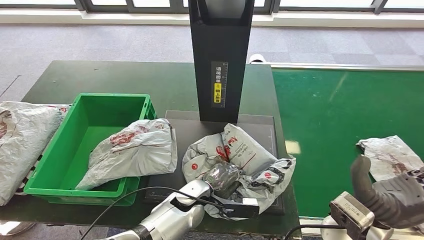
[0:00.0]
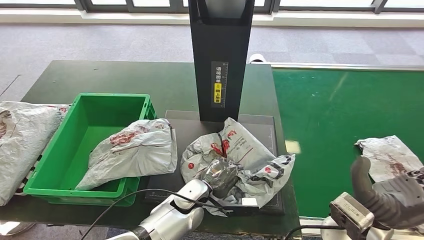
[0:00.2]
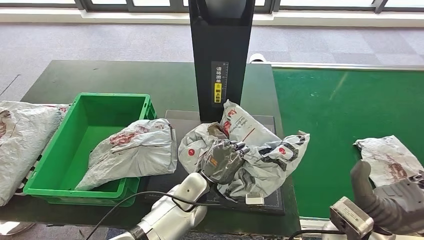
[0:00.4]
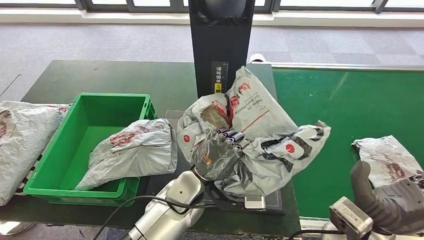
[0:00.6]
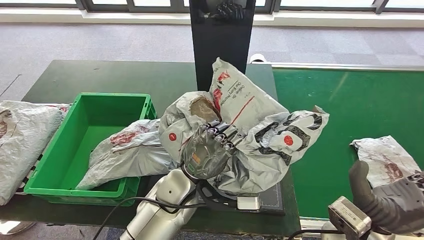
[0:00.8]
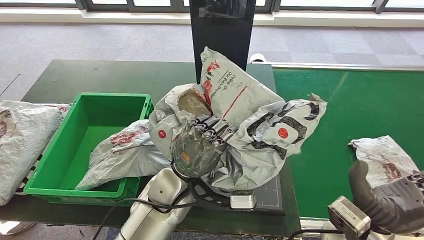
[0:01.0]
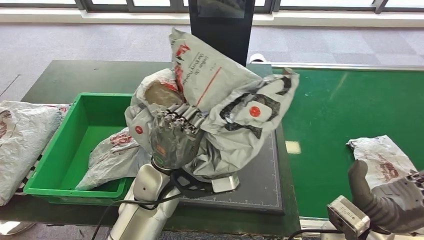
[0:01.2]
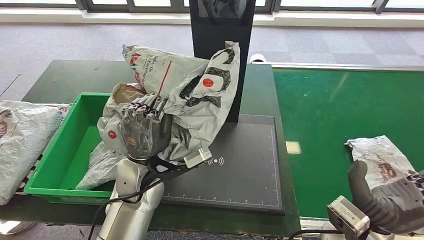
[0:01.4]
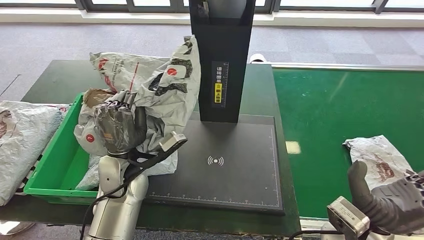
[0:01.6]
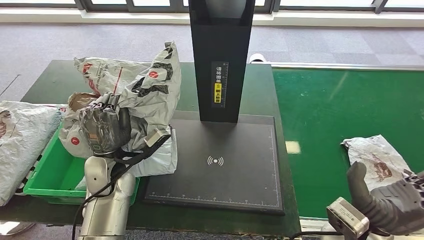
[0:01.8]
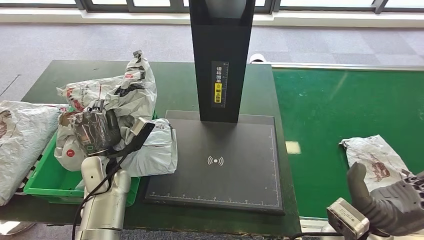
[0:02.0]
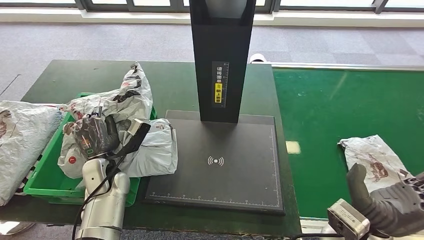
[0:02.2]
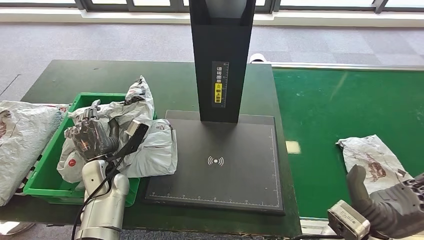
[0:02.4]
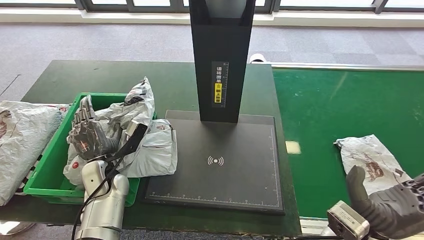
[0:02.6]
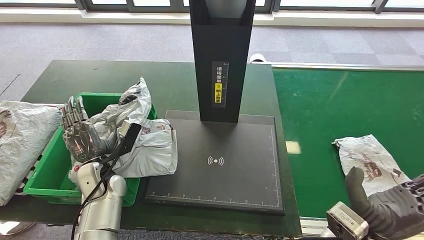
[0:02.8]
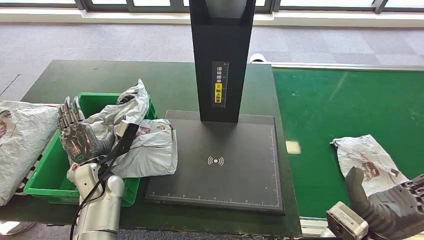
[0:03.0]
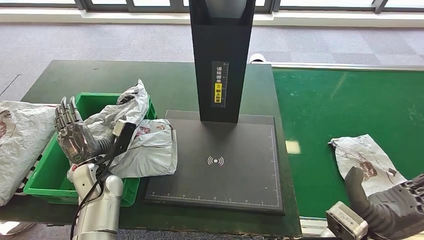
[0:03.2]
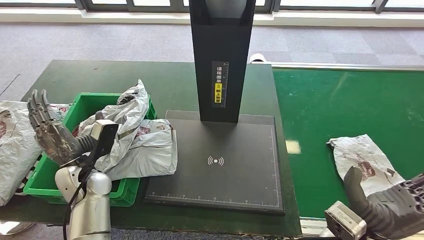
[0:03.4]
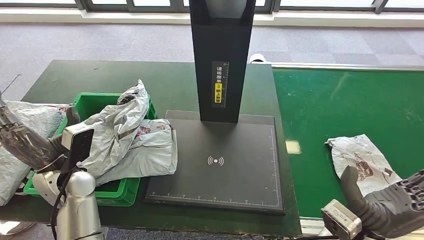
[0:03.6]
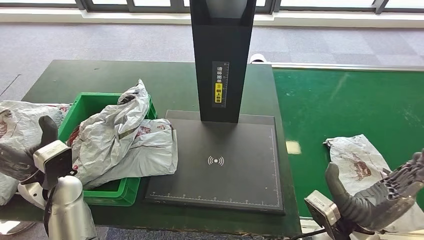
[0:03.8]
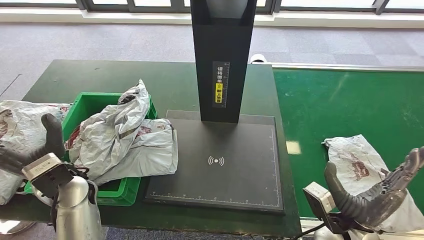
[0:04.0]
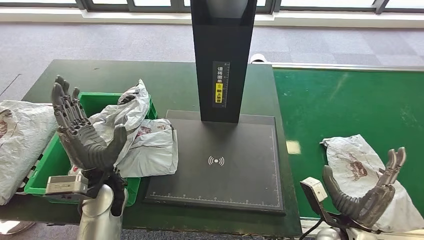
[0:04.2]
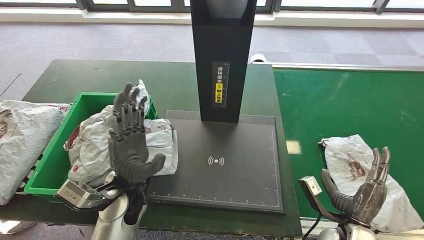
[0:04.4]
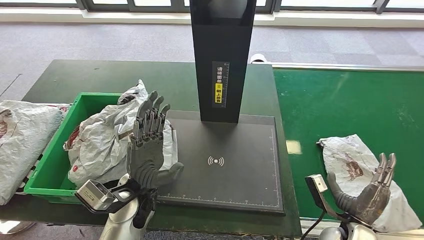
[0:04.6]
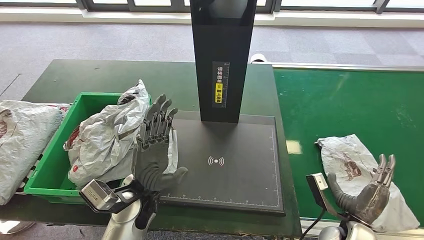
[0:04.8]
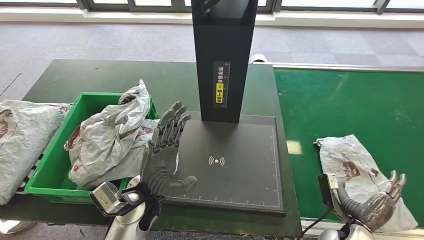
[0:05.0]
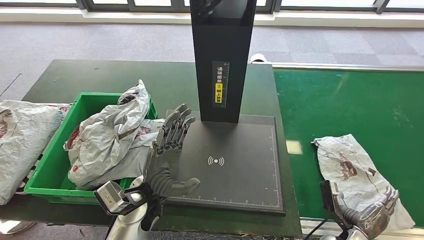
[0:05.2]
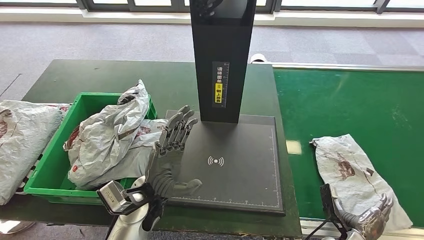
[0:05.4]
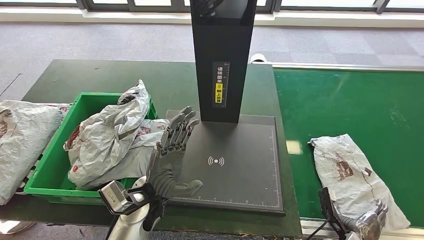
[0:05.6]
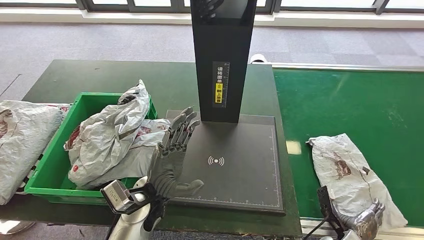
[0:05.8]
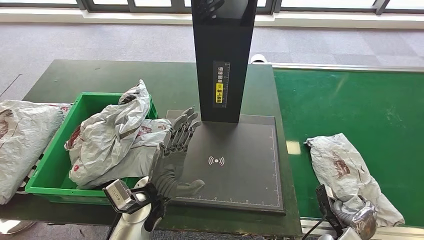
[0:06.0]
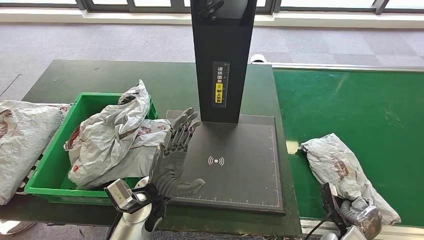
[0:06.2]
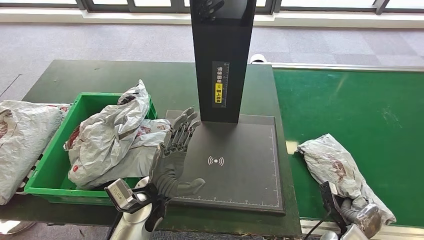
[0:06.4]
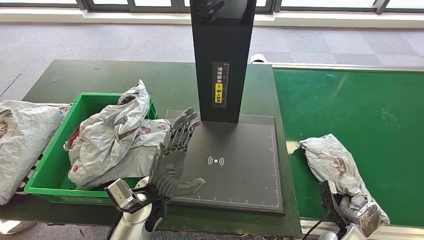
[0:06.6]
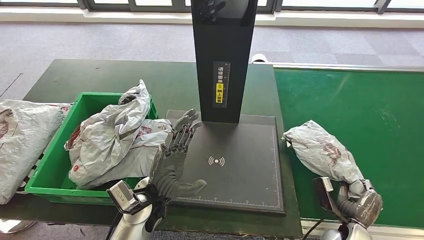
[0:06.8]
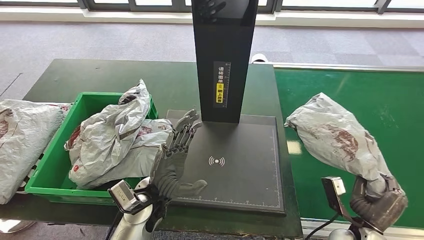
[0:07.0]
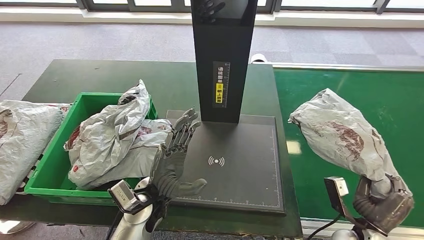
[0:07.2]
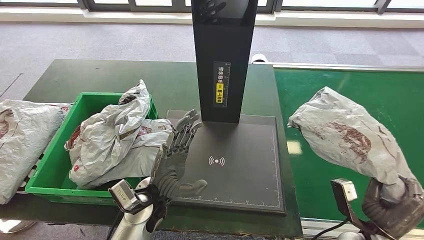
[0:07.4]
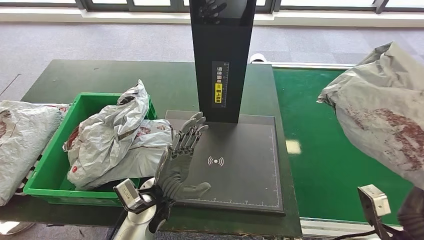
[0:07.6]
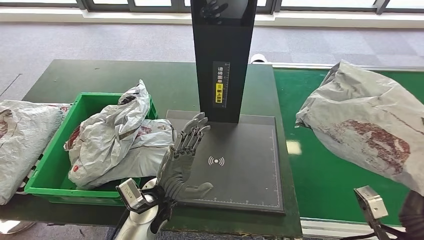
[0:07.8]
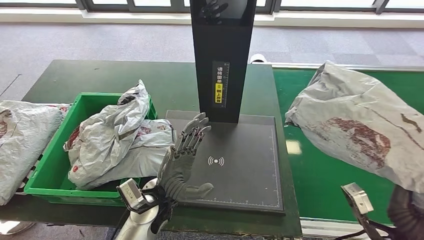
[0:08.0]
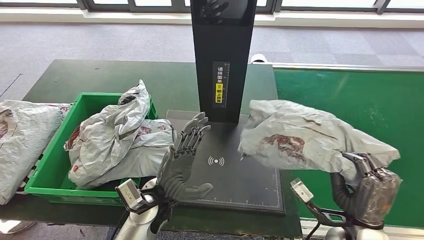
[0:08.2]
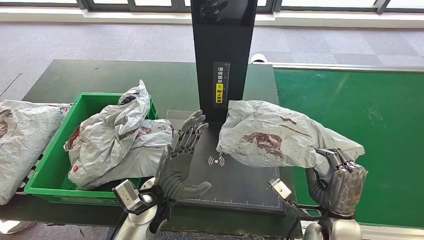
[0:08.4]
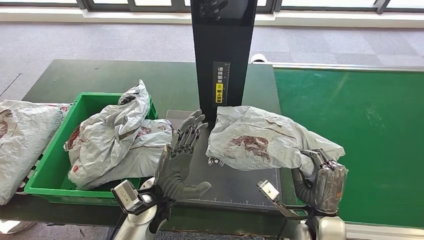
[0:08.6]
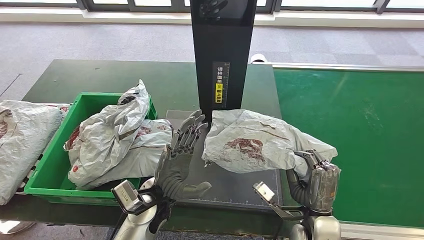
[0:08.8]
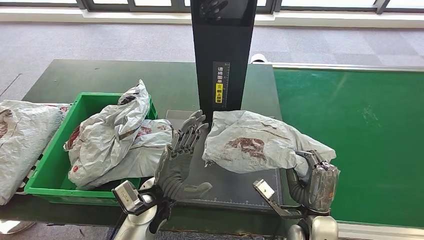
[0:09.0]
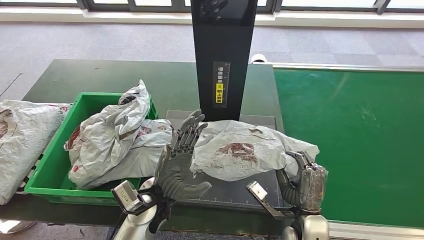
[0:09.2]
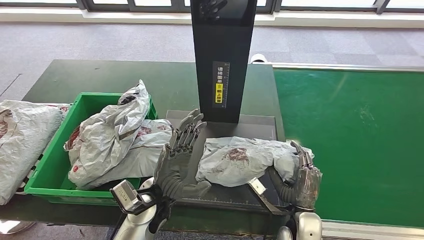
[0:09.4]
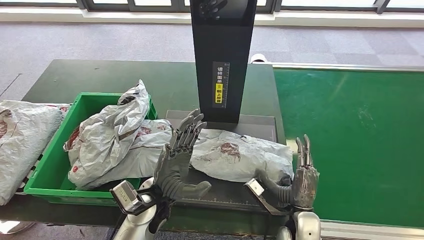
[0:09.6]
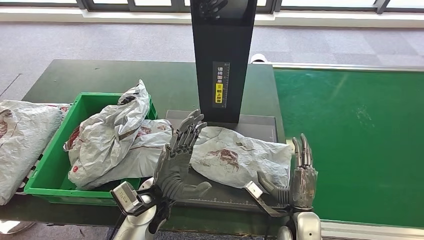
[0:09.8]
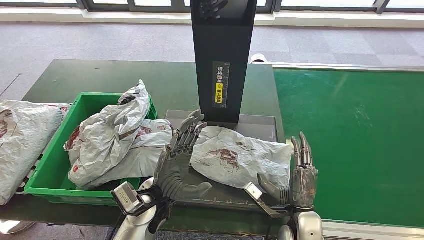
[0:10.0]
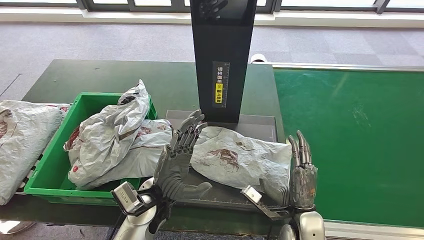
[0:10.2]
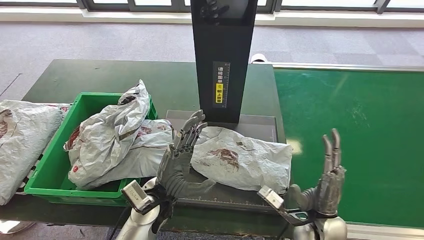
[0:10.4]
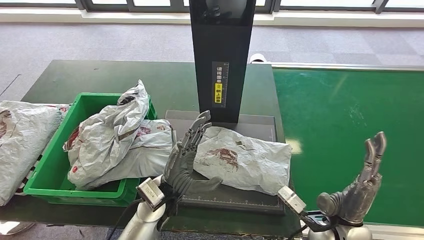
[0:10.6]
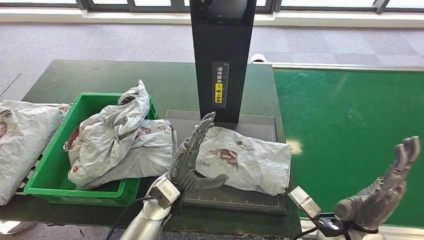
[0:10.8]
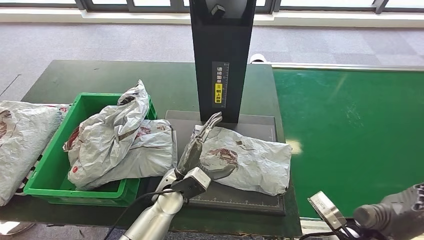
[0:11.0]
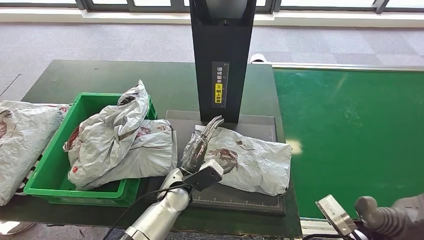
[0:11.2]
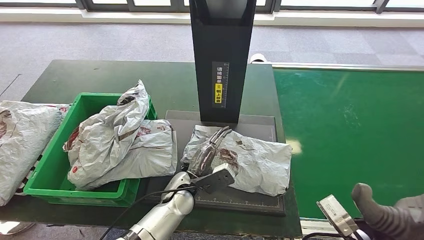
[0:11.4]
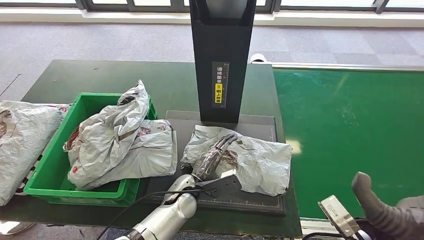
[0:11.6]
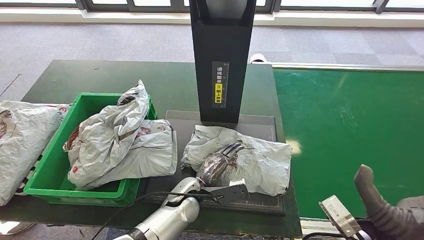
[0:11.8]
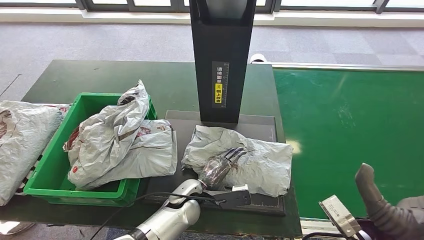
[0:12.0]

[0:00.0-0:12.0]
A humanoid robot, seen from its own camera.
Step, 0:00.6 to 0:03.6: Place the parcel into the delivery box.
Step, 0:03.8 to 0:07.6: Pick up the parcel from the conveyor belt.
Step, 0:07.8 to 0:10.8: Place the parcel onto the inbound machine.
0:01.6 to 0:03.0: The left hand is displaced to the left and downward by approximately 10 cm.
0:03.0 to 0:04.4: The right hand heads downward and to the right, covering about 10 cm, while the left hand goes roughly 15 cm to the right and upward.
0:04.4 to 0:06.0: The right hand heads downward, covering about 10 cm. Meanwhile the left hand changes place by roughly 5 cm.
0:09.0 to 0:10.4: The hands make only small movements.
0:10.4 to 0:12.0: The left hand goes about 10 cm downward, while the right hand heads upward and to the right, covering approximately 10 cm.

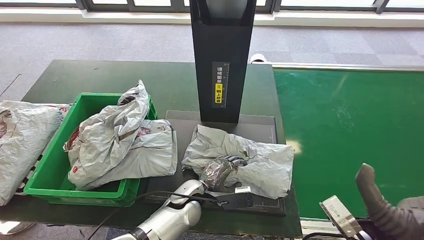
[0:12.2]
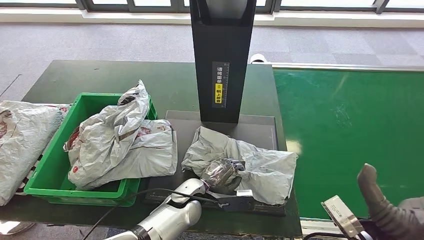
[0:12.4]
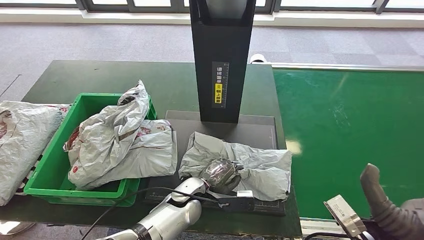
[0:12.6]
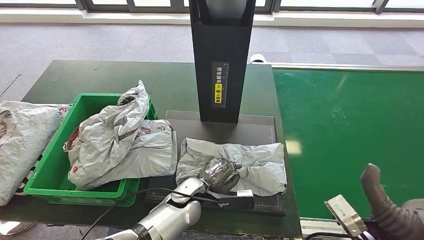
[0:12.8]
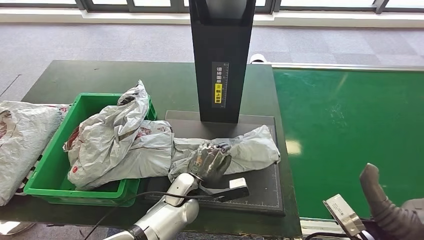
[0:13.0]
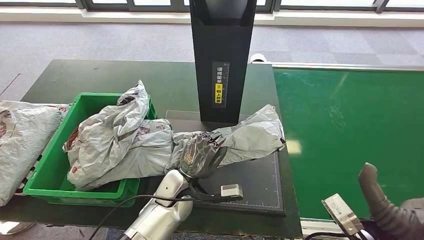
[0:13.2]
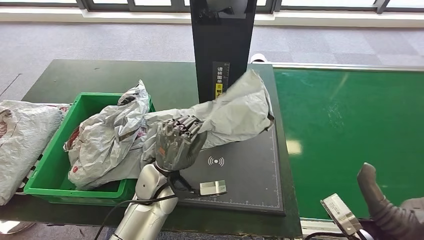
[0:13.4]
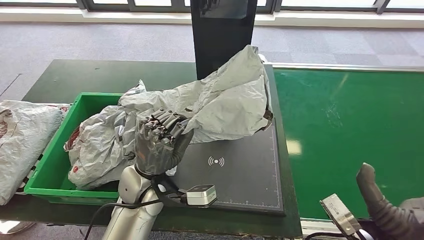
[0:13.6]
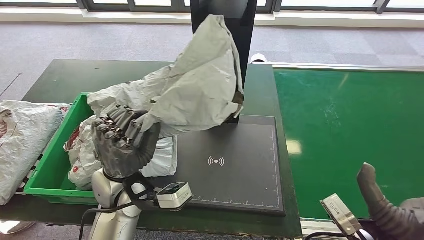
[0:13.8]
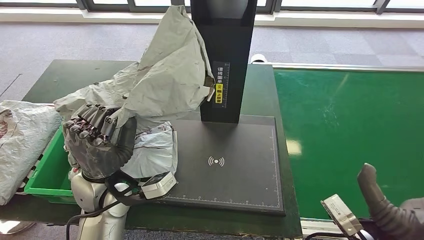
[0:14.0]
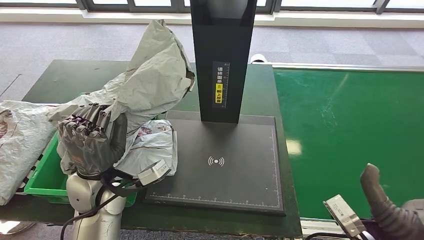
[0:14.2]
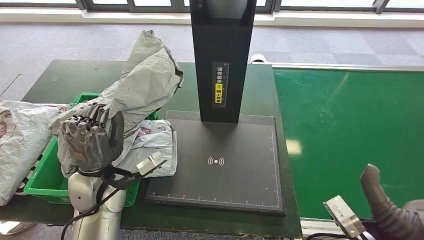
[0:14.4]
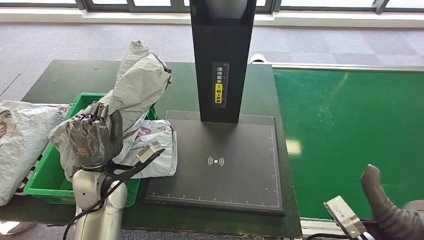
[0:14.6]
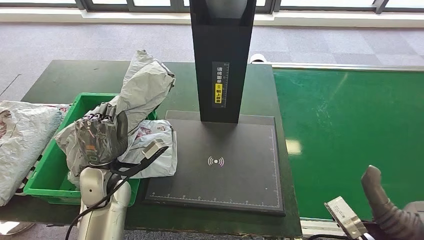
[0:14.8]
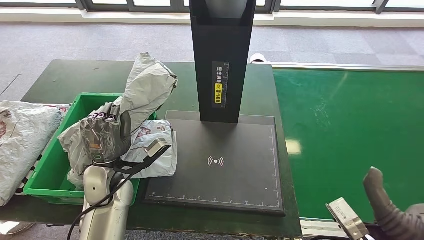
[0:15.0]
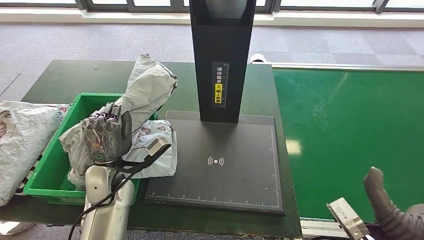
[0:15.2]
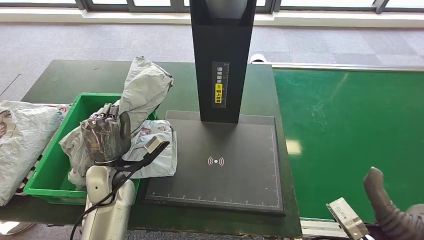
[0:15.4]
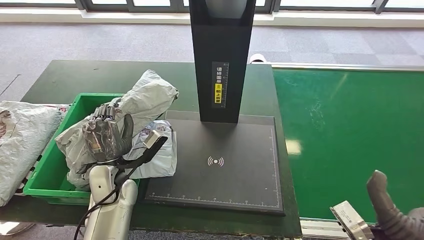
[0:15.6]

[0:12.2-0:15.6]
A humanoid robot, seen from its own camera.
Step, 0:12.2 to 0:13.8: Pick up the parcel from the inbound machine.
Step, 0:14.0 to 0:15.6: Place the parcel into the delivery box.
0:13.8 to 0:15.6: The left hand goes about 10 cm downward and to the left.
